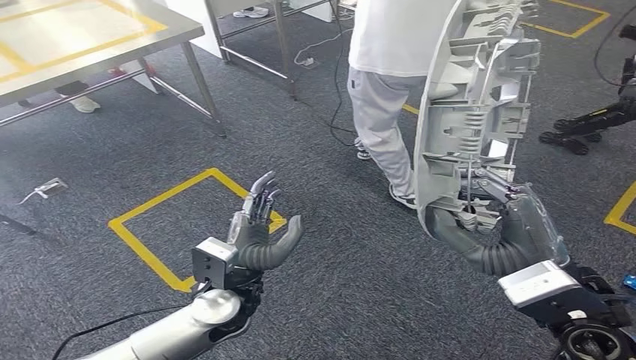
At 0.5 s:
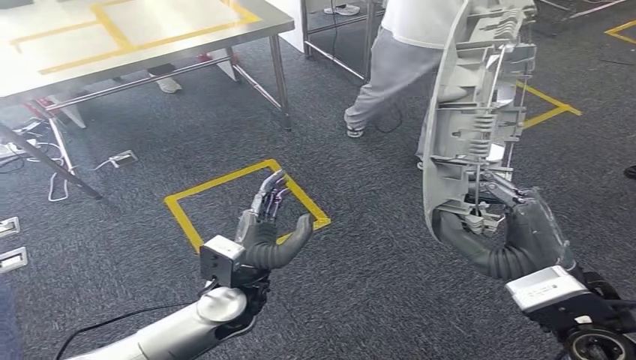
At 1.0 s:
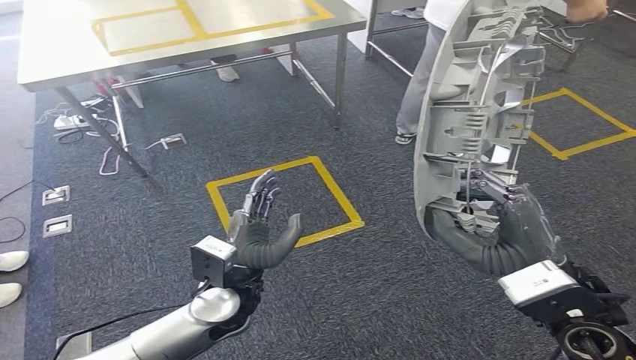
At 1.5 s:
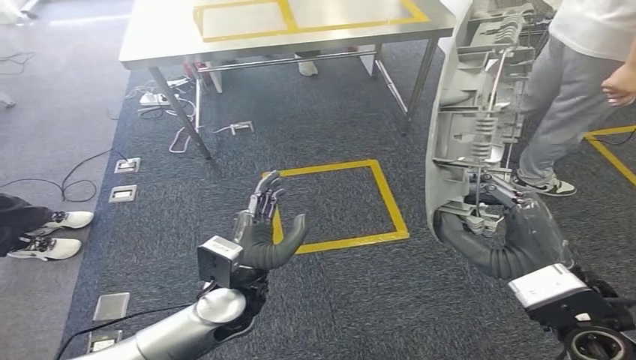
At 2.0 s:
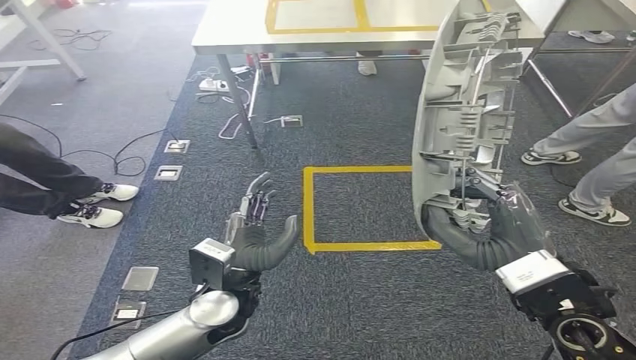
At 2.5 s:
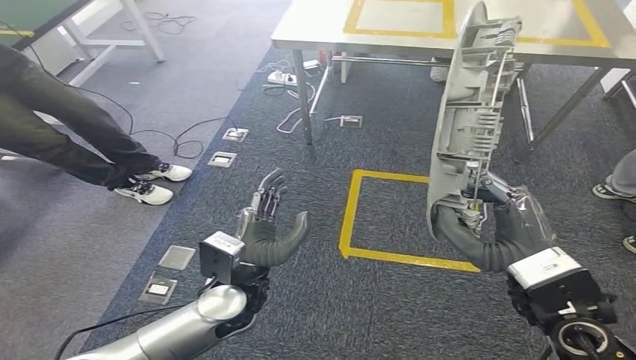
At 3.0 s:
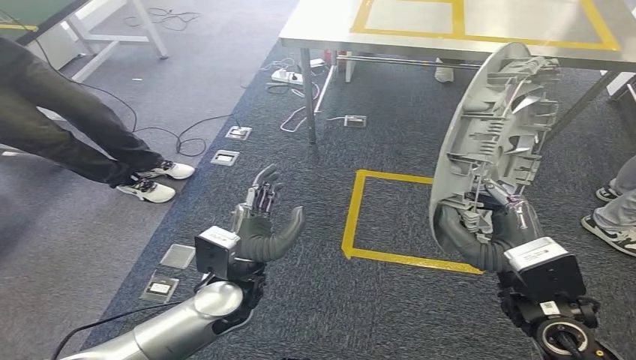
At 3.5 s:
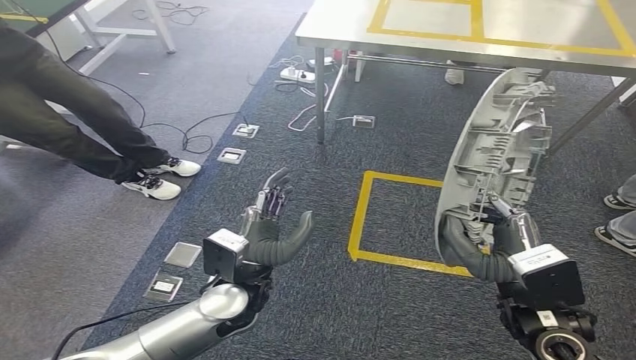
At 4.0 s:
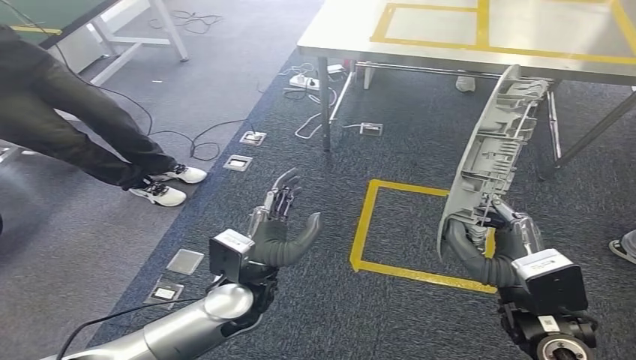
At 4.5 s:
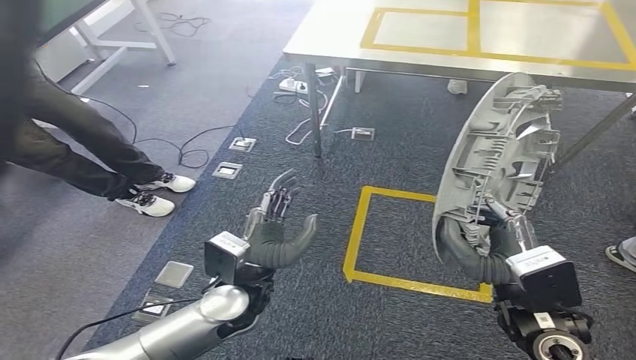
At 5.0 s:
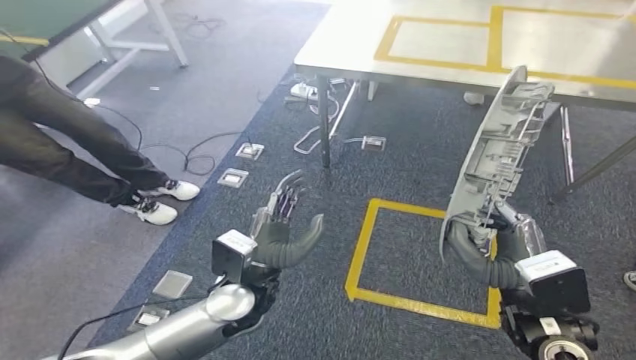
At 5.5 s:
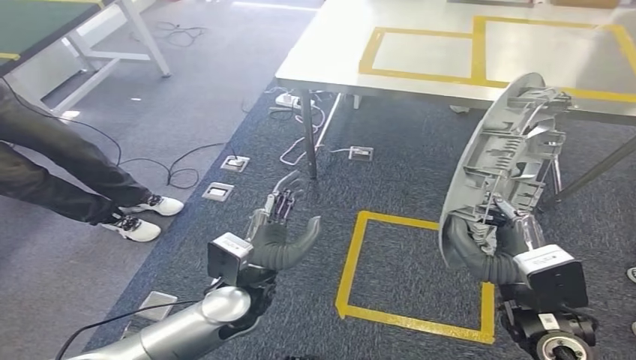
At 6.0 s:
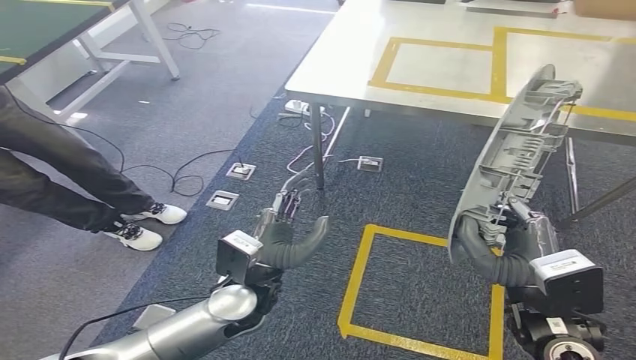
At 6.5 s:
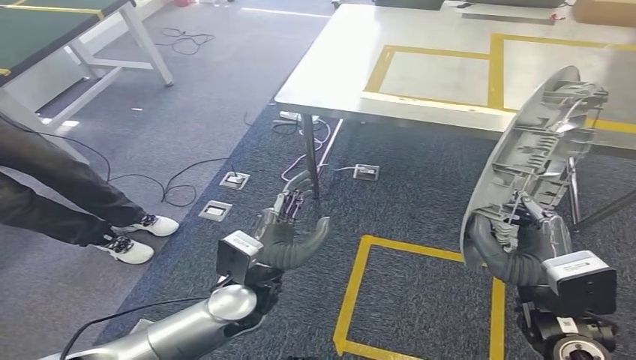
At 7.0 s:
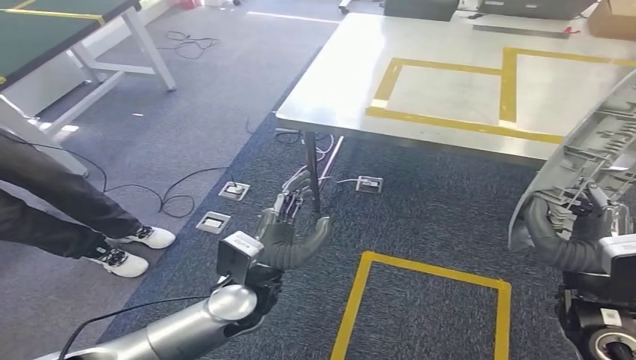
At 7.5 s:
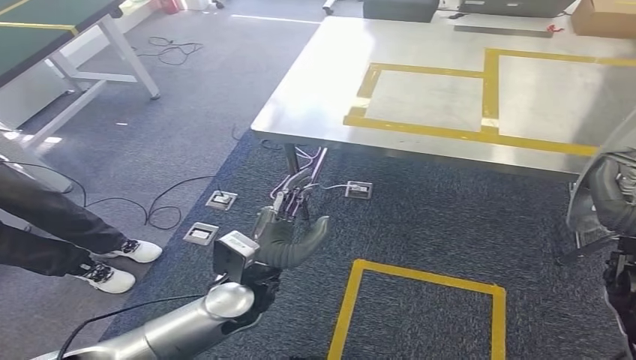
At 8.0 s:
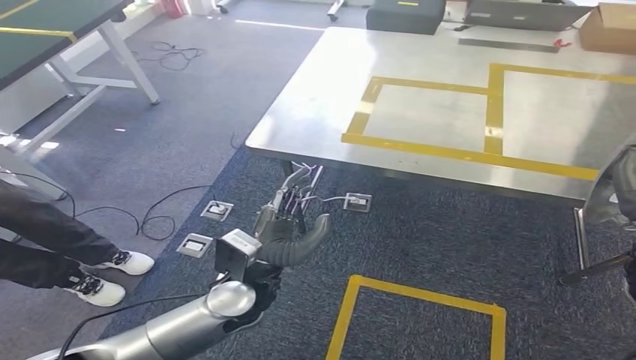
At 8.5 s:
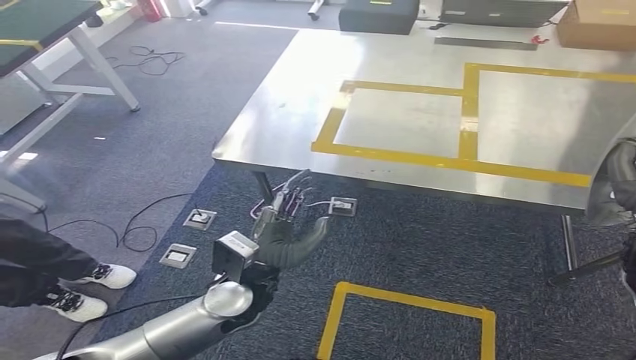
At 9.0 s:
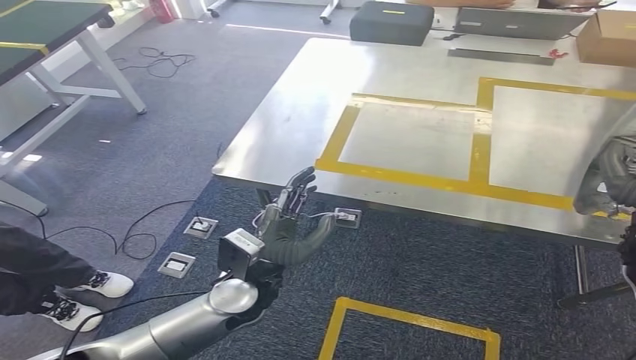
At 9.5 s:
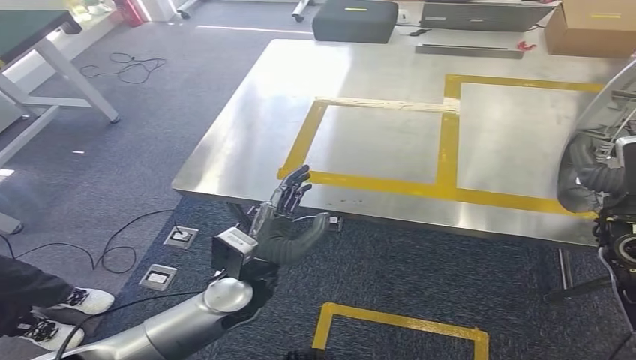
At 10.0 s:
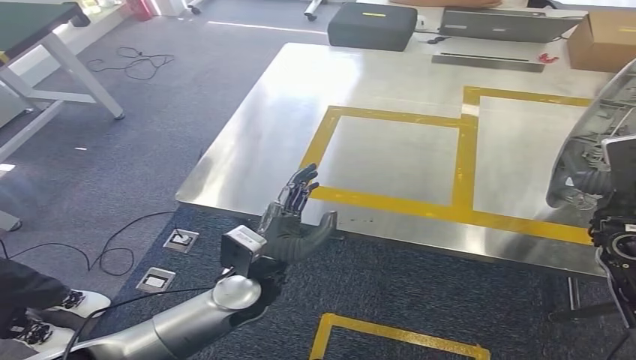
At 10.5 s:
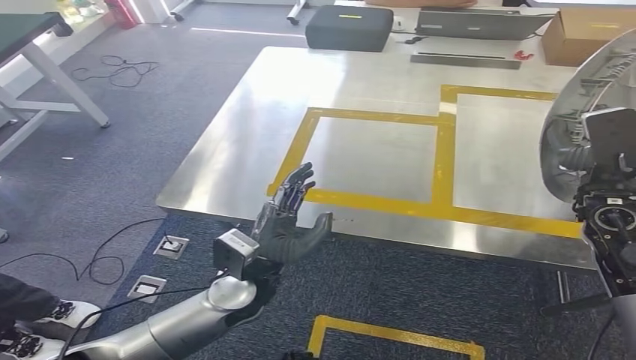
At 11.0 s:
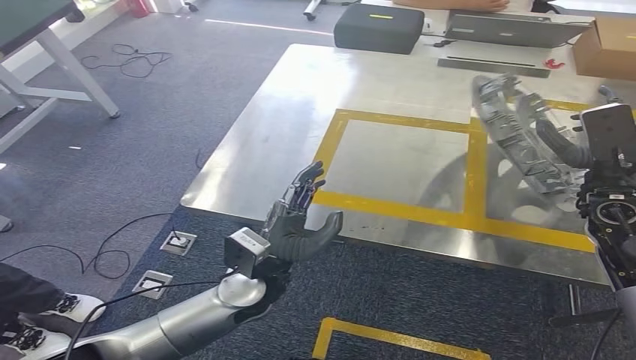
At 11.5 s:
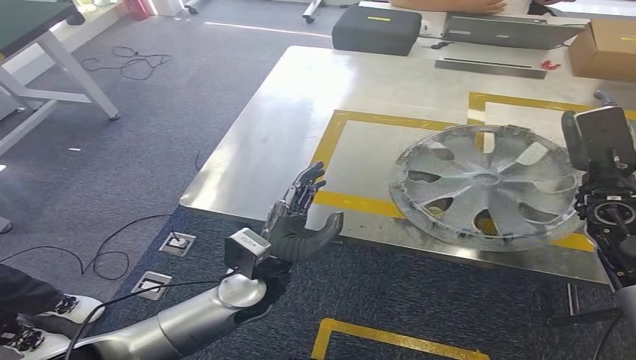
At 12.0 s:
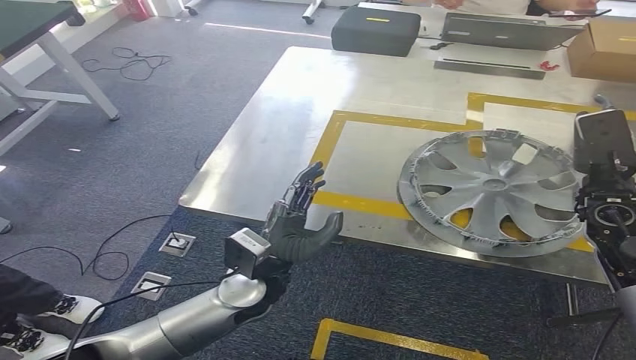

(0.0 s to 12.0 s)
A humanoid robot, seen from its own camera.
Step, 0.0 s - 8.0 s: Move the small parts to the workbench.

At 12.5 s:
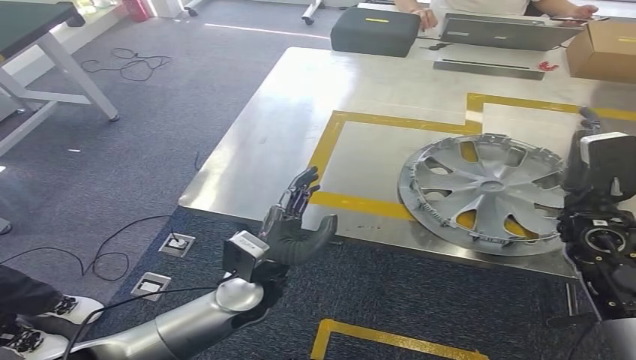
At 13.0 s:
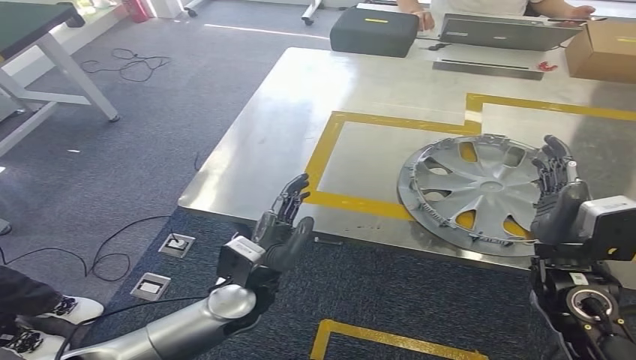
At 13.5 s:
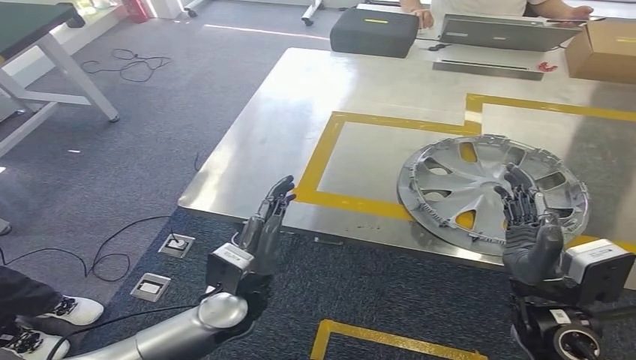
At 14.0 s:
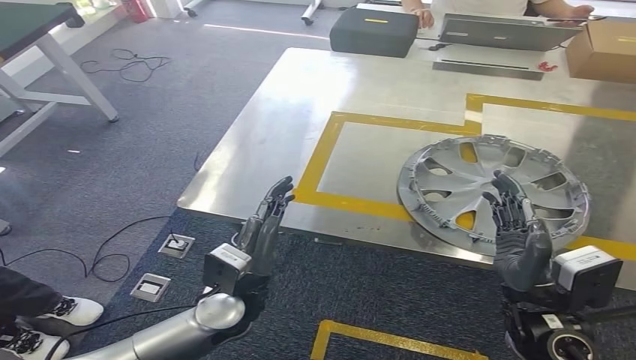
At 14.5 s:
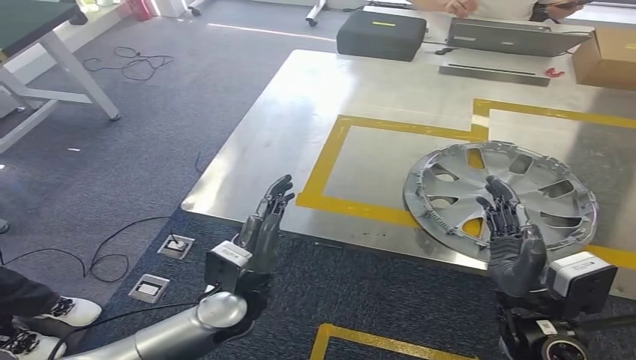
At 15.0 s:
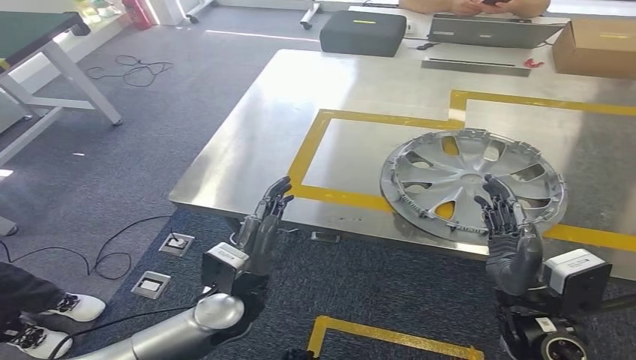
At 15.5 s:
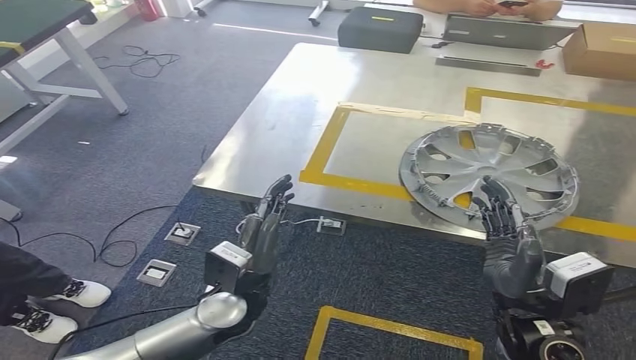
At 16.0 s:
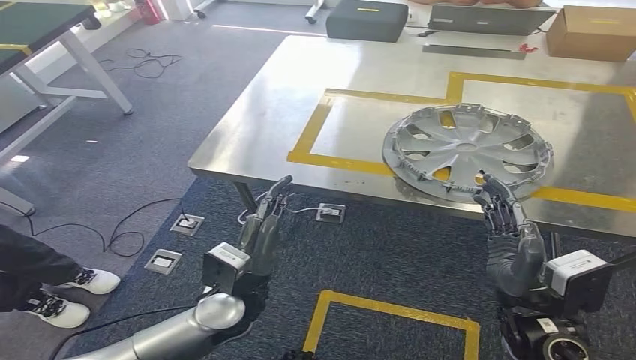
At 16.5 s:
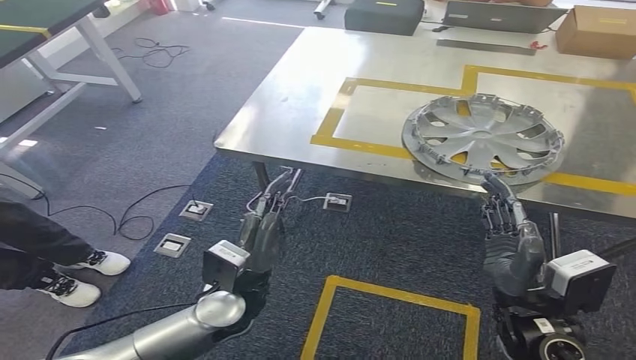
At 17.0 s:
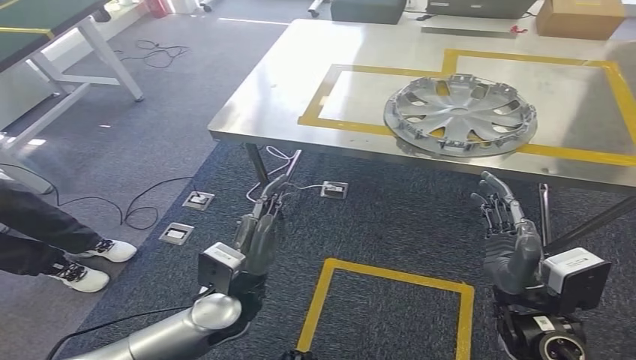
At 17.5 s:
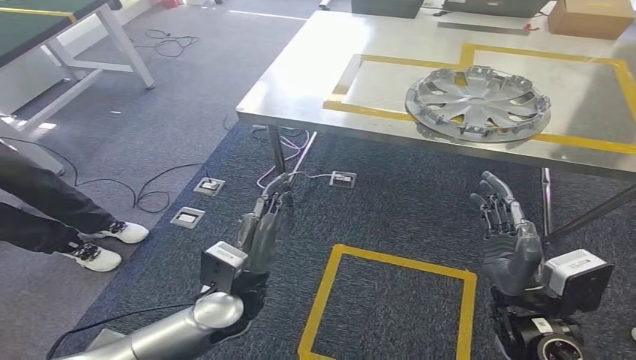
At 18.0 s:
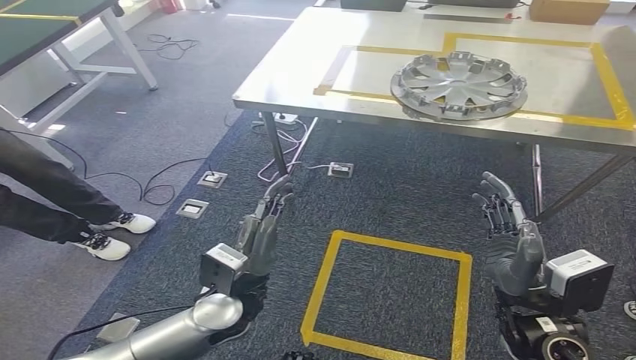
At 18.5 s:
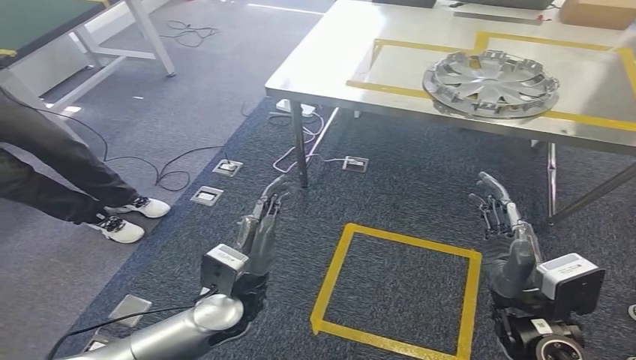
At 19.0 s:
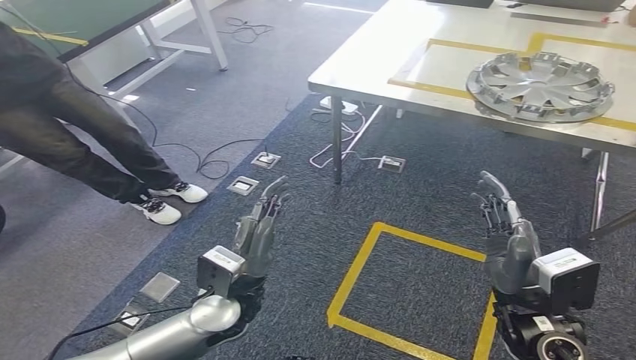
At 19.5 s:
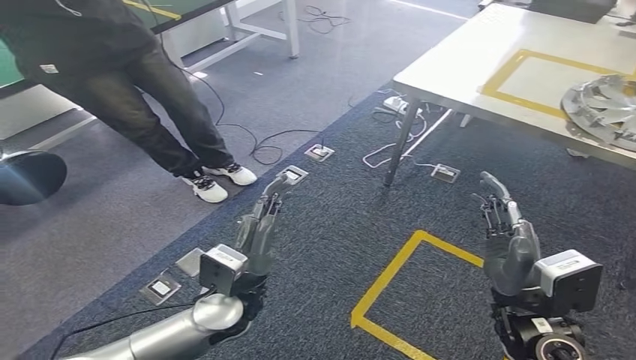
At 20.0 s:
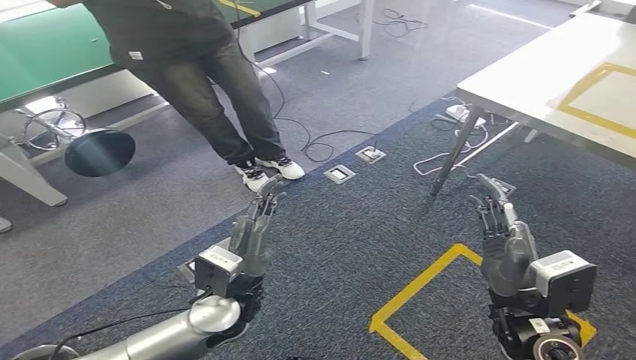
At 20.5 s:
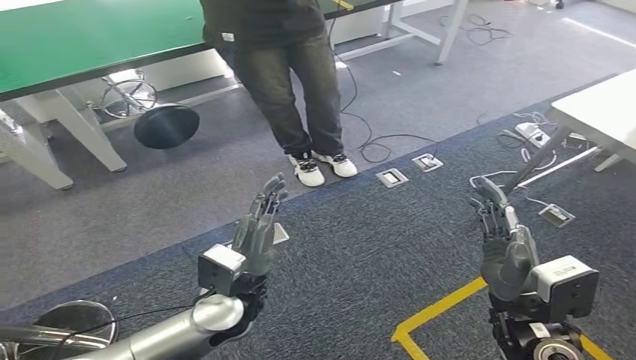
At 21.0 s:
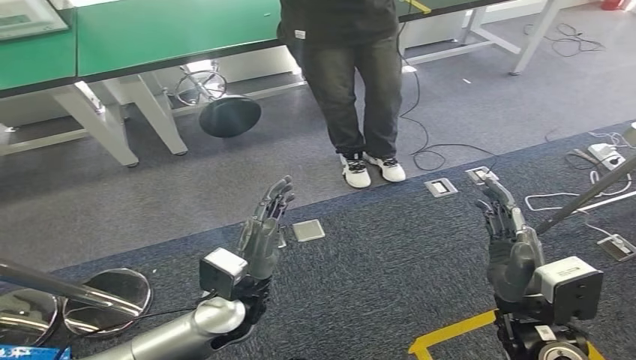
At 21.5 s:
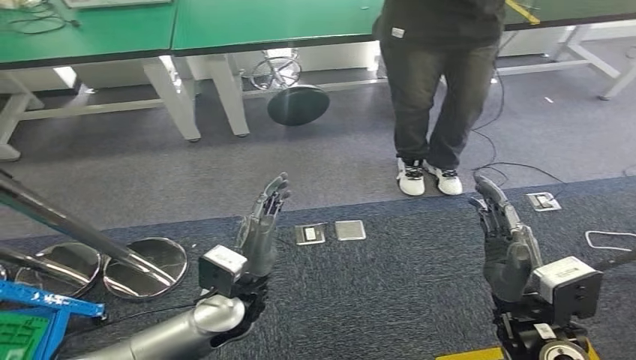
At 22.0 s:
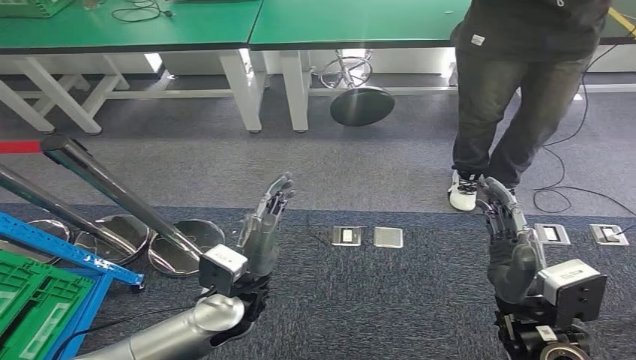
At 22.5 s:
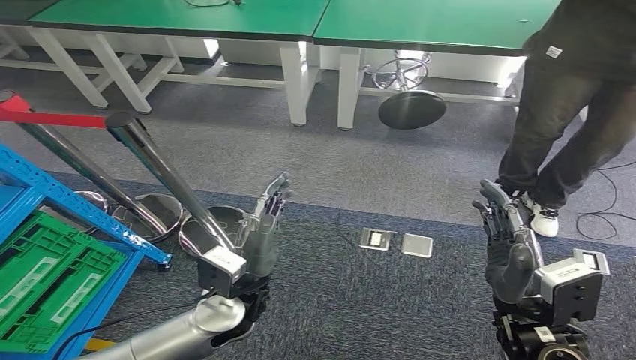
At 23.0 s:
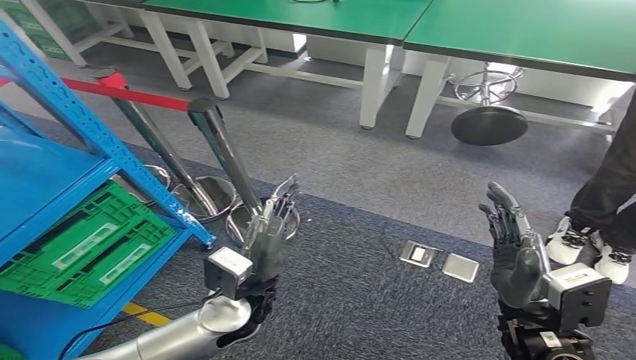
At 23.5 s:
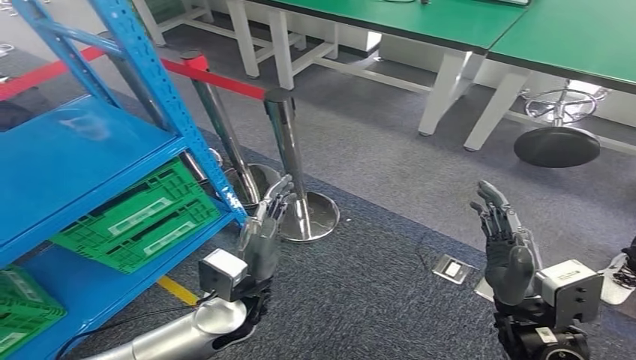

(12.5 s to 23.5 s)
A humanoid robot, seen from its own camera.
Step, 12.5 s - 15.5 s: Insert the small parts into the corresponding slots on the workbench.
